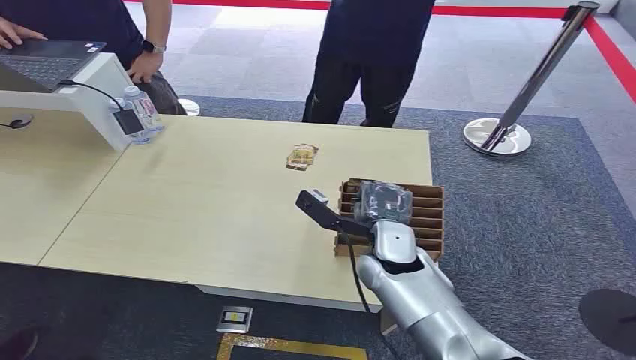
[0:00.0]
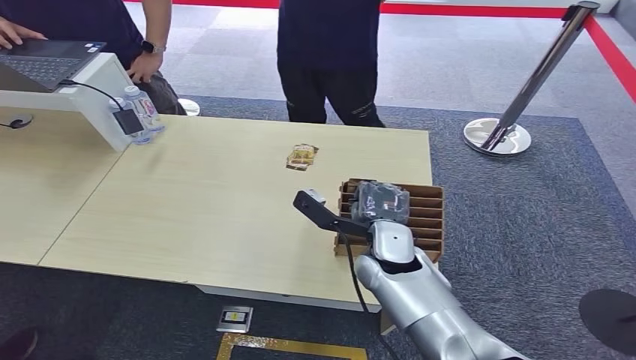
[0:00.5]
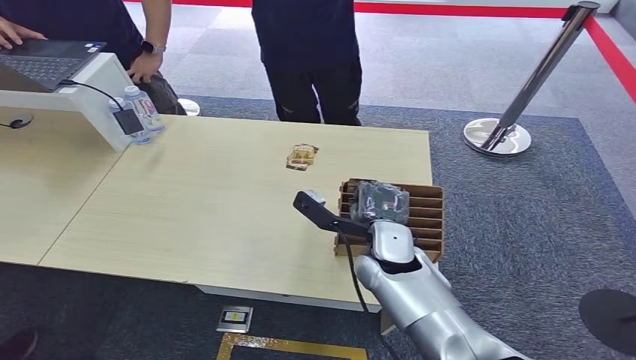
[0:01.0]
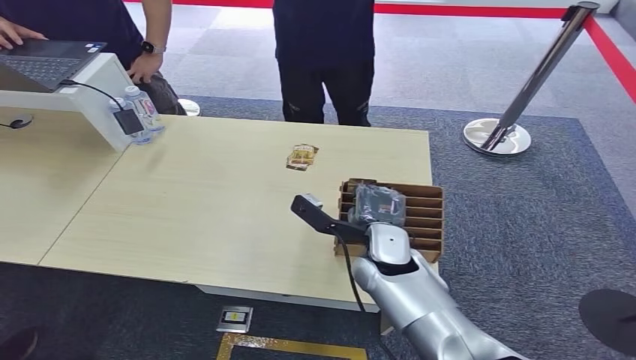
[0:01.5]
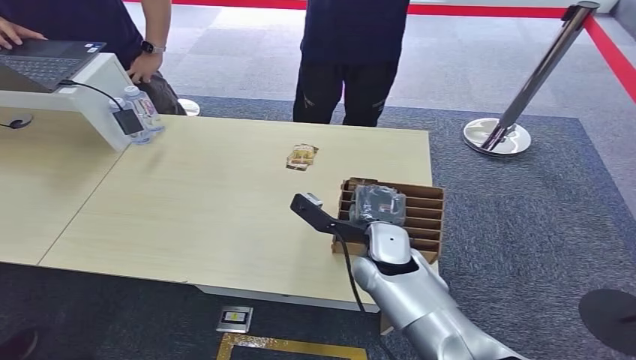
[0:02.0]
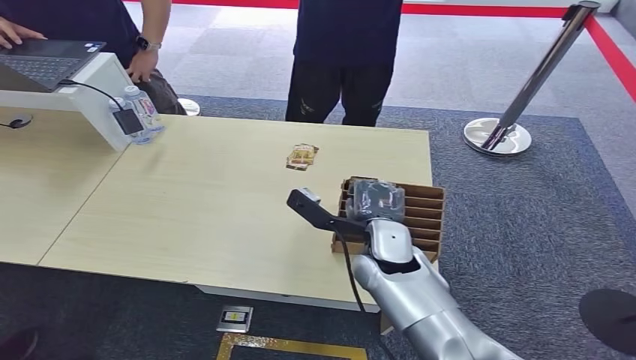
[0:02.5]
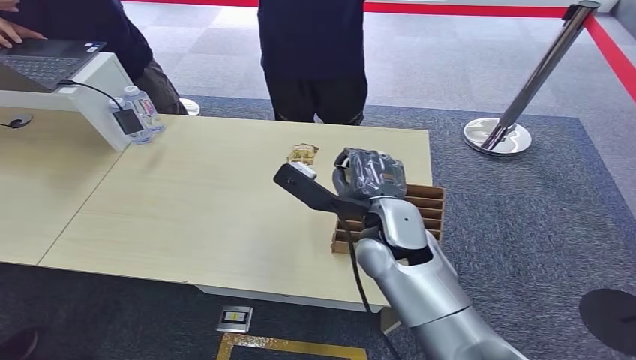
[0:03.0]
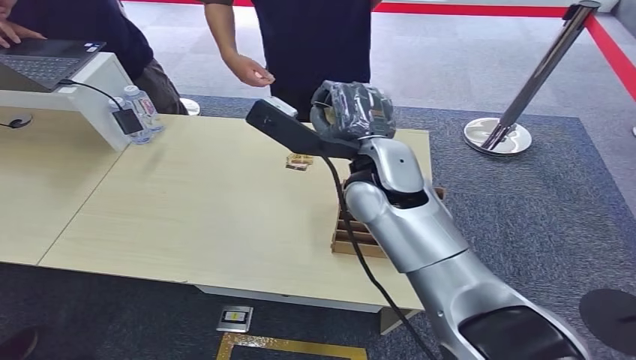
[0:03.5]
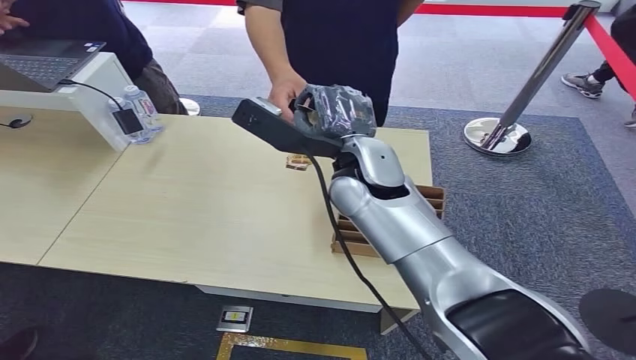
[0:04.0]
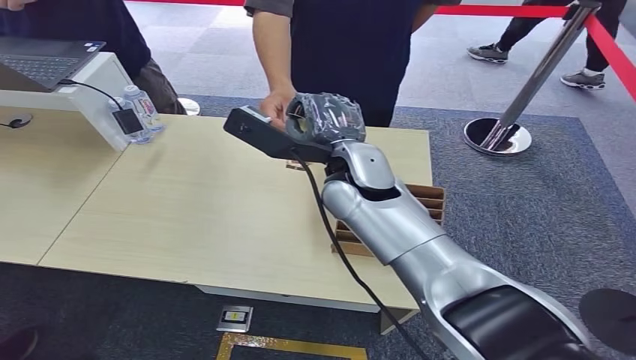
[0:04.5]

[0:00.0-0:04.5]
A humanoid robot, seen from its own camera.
Step, 0:00.0 to 0:03.0: Pick up the room card from the card holder.
Step, 0:03.5 to 0:04.5: Hand the room card to the target.
